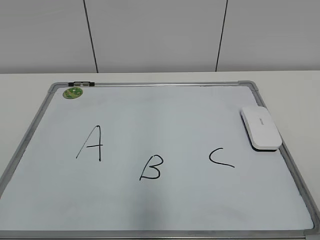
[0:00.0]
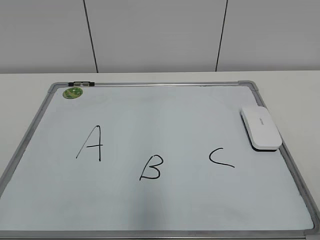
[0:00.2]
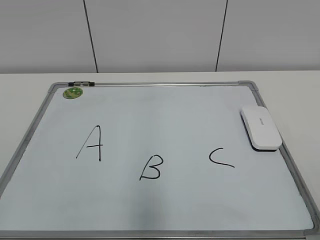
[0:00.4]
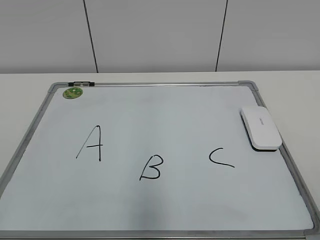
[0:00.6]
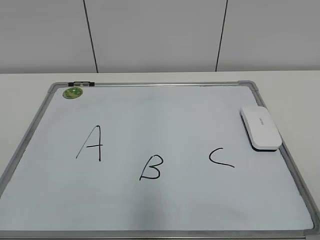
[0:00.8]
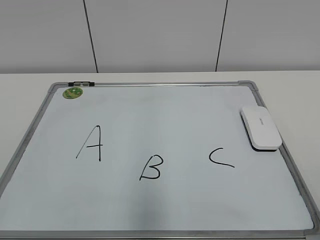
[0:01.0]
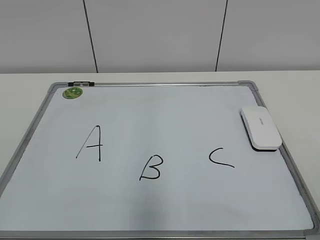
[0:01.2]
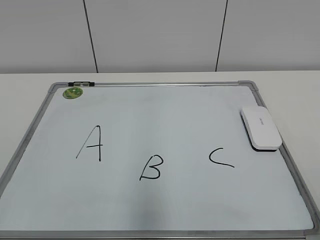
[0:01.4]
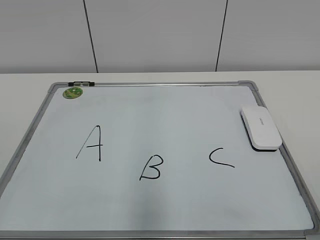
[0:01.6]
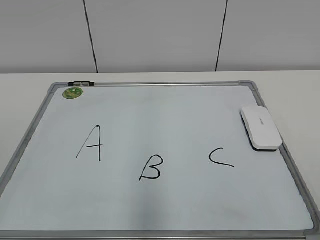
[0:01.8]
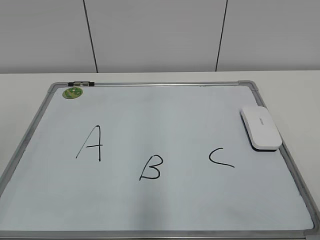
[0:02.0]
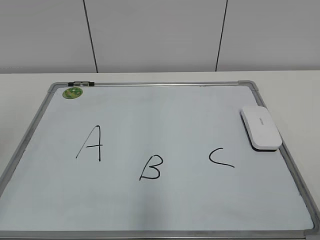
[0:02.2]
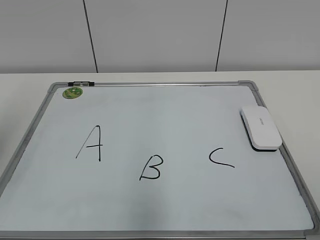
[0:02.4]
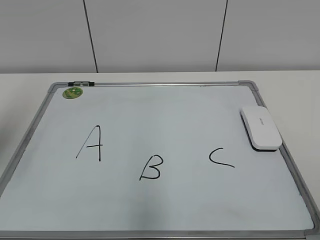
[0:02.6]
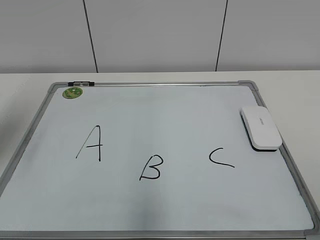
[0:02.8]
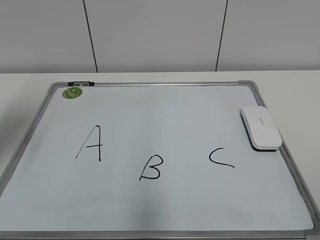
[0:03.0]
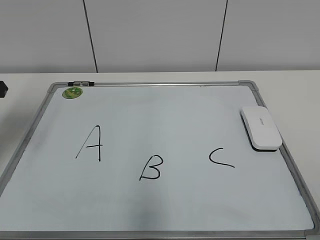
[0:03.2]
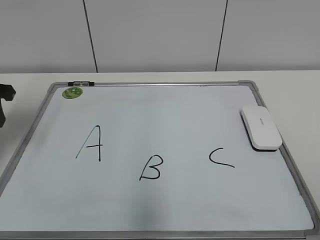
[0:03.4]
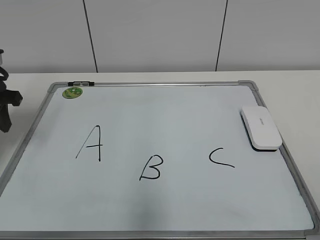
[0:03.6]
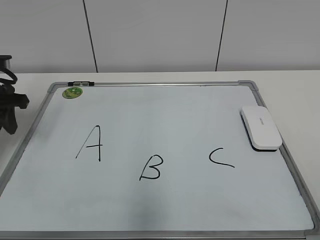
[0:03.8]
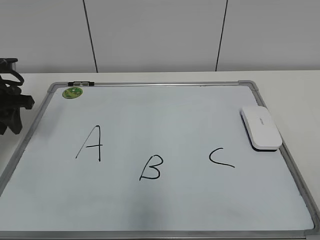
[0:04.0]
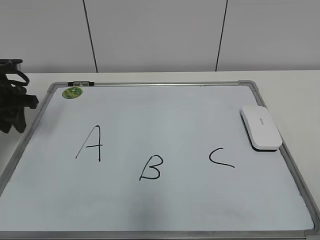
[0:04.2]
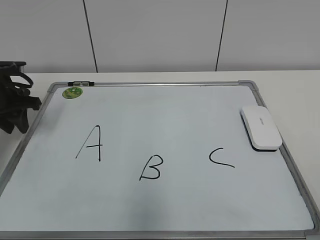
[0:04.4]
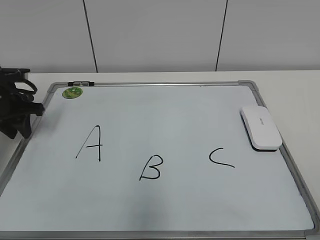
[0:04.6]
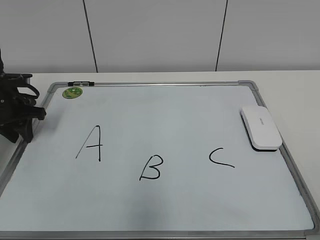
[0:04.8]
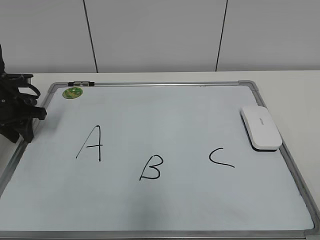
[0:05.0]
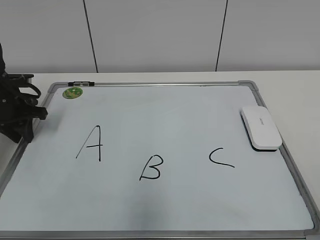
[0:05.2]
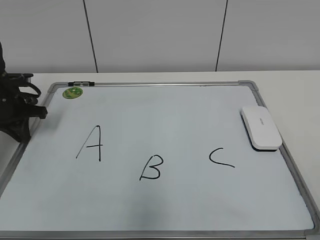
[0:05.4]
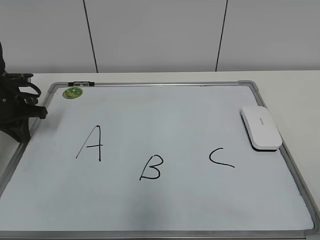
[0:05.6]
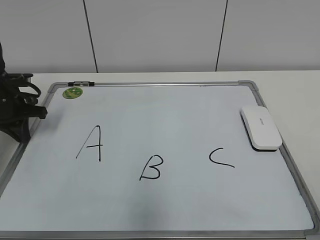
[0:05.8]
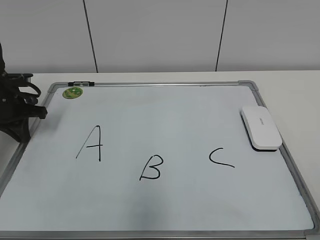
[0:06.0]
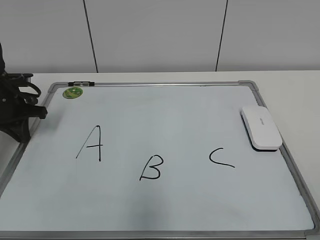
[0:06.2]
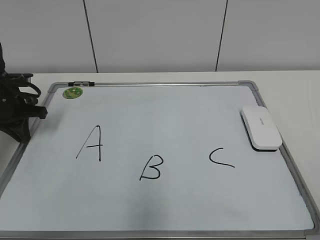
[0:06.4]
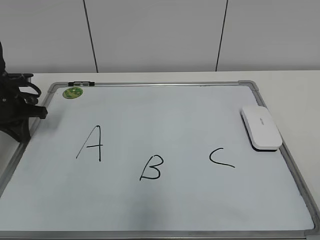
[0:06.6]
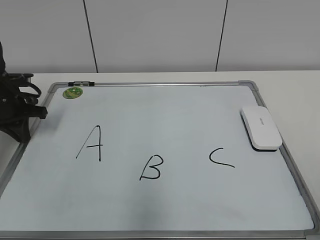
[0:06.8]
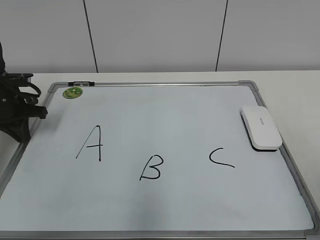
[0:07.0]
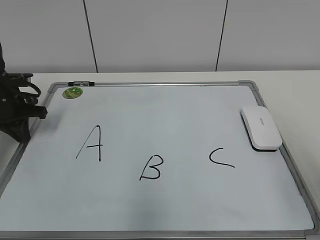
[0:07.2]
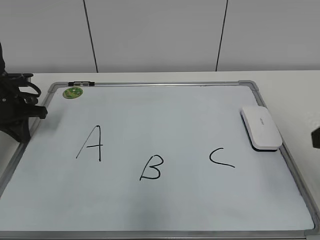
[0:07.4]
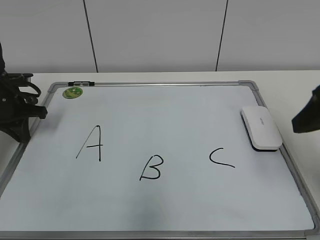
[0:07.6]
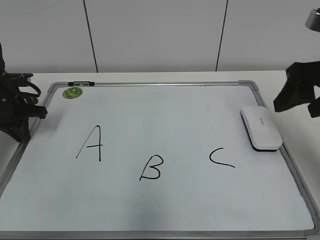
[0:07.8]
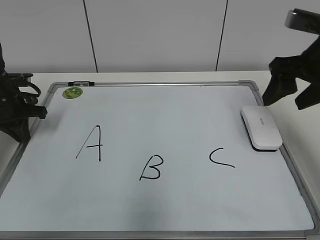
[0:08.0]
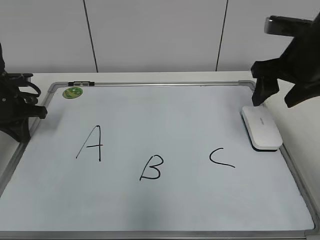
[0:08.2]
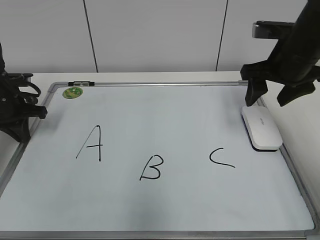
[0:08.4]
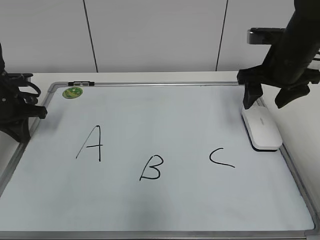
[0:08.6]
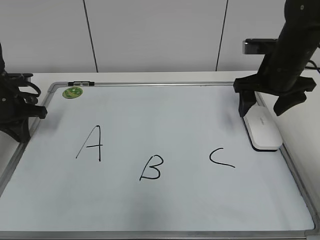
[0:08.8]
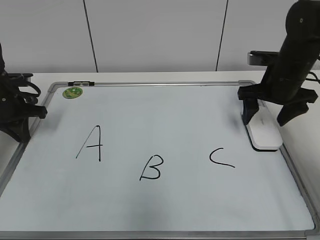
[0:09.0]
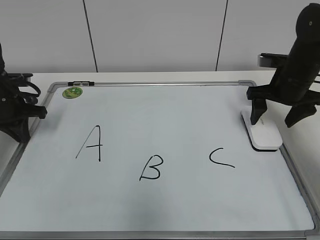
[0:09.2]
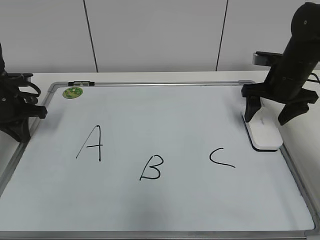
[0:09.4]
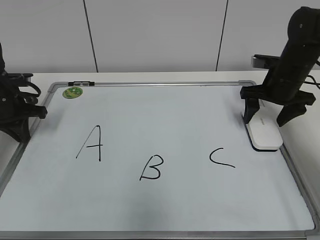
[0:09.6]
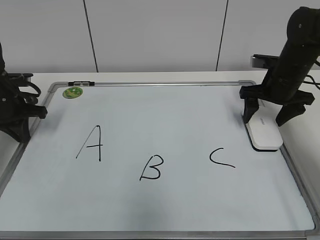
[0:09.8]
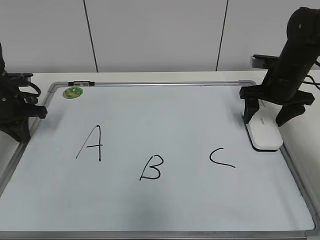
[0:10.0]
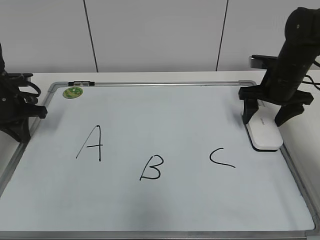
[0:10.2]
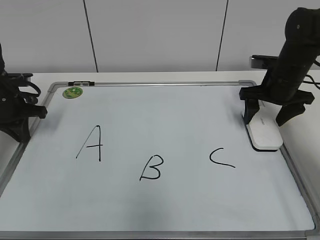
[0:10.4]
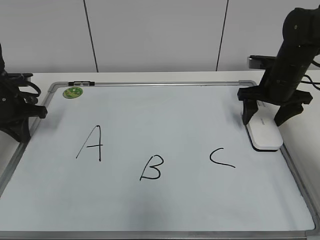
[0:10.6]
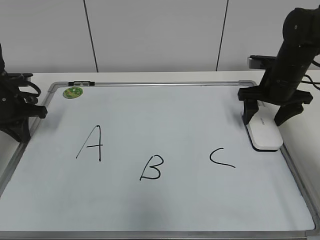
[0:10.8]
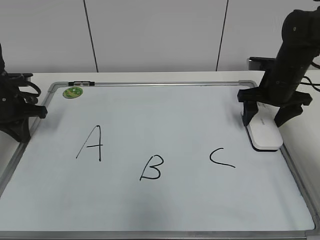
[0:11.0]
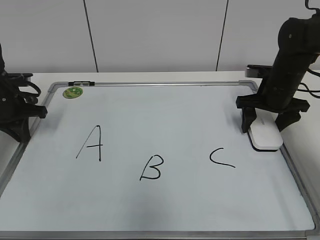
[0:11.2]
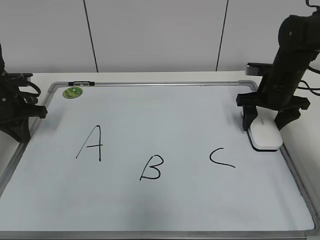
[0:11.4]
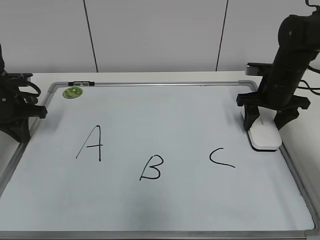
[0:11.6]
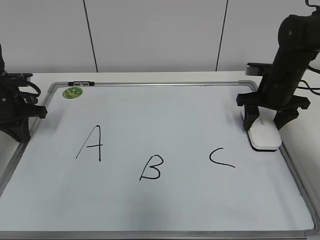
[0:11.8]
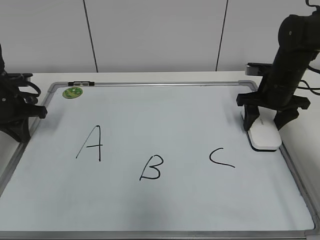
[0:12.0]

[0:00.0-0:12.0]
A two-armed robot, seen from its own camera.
Task of the whole recording: pick up the eraser on the blackboard and erase the letter "B".
Step, 0:00.0 to 0:05.4: Hold the drawing board steady with your left hand.
Step, 0:05.6 to 0:12.0: Grab the eraser with your right hand.
0:01.6 to 0:03.0: The left gripper goes approximately 30 cm forward.
0:03.0 to 0:04.4: The left gripper shifts approximately 15 cm downward and forward.
0:04.4 to 0:06.0: The left gripper closes.
0:06.0 to 0:07.6: The right gripper moves forward, roughly 25 cm.
0:07.6 to 0:09.0: The right gripper shifts about 20 cm forward and downward, and opens.
0:09.0 to 0:10.4: The grippers make only small movements.
0:10.4 to 0:12.0: The right gripper closes up.

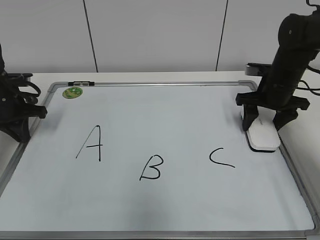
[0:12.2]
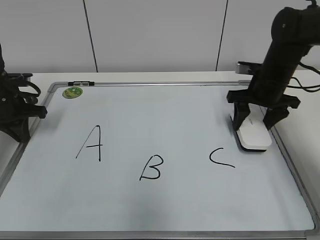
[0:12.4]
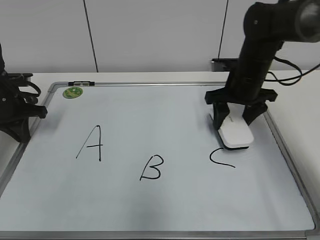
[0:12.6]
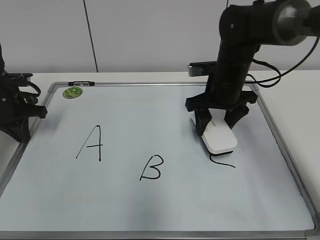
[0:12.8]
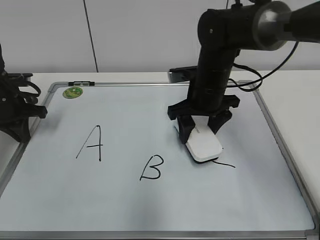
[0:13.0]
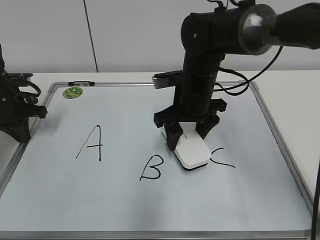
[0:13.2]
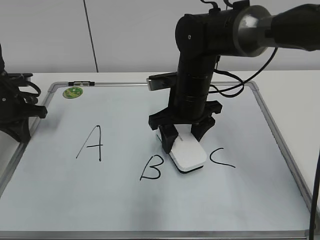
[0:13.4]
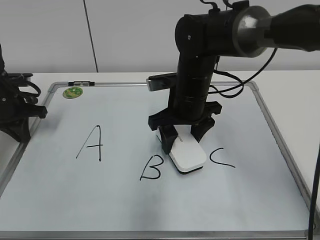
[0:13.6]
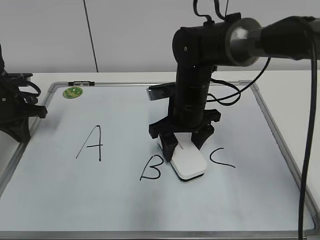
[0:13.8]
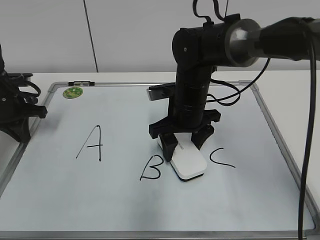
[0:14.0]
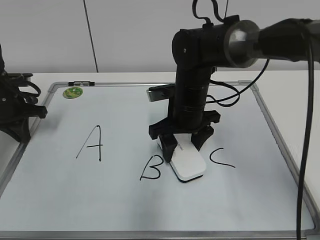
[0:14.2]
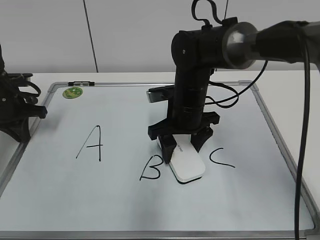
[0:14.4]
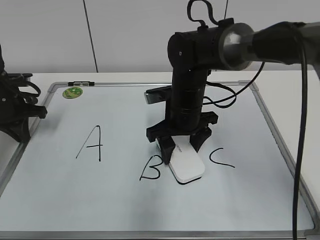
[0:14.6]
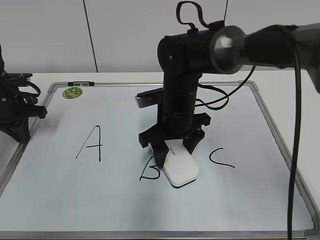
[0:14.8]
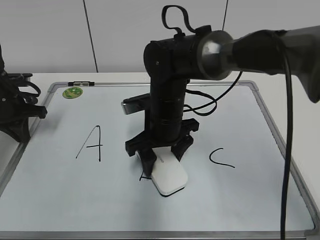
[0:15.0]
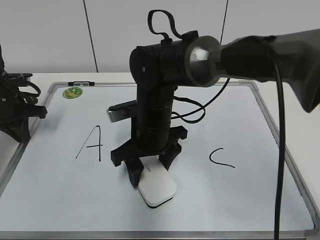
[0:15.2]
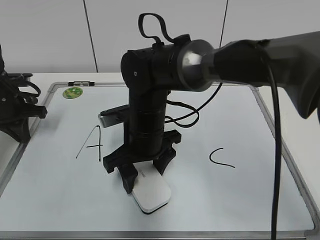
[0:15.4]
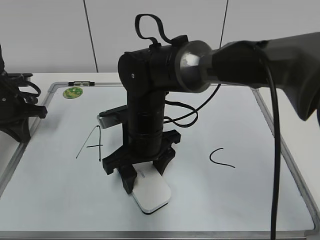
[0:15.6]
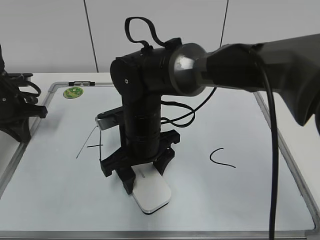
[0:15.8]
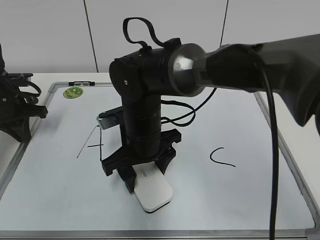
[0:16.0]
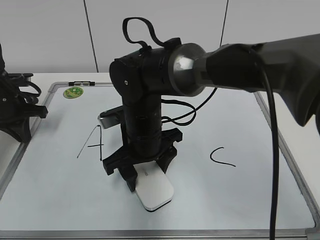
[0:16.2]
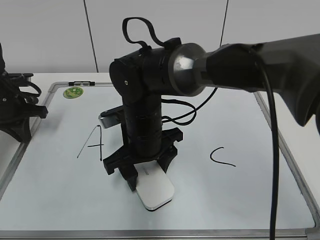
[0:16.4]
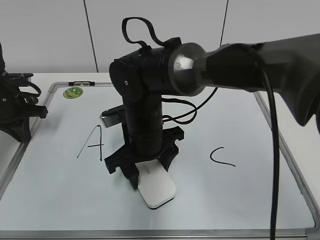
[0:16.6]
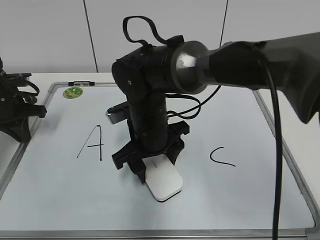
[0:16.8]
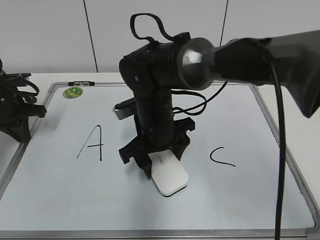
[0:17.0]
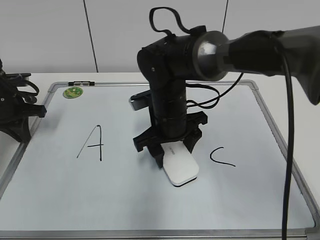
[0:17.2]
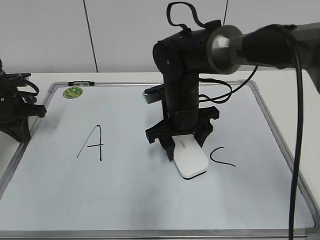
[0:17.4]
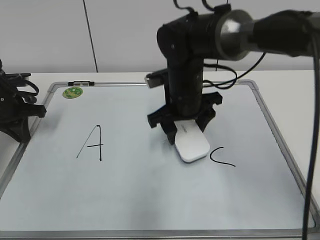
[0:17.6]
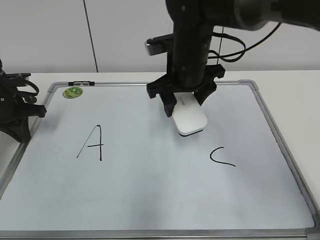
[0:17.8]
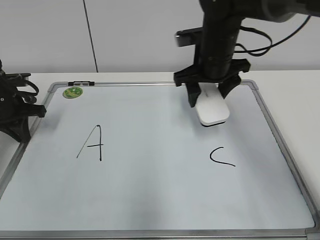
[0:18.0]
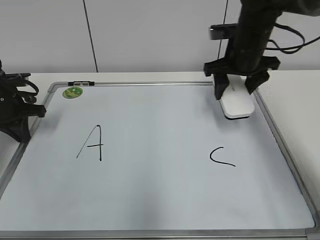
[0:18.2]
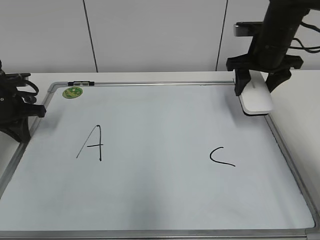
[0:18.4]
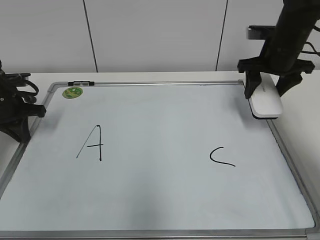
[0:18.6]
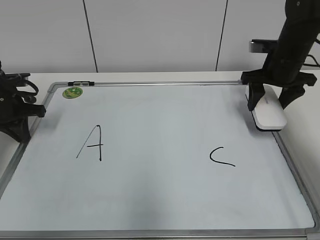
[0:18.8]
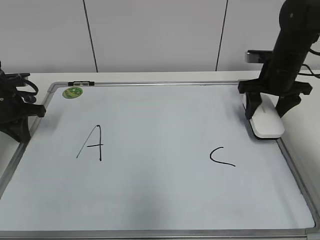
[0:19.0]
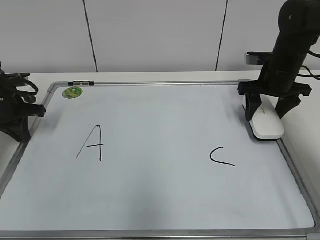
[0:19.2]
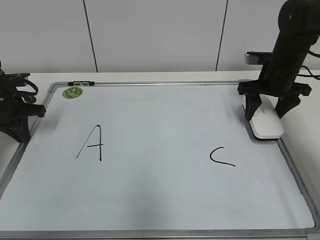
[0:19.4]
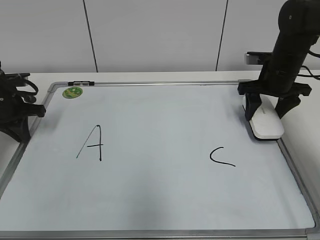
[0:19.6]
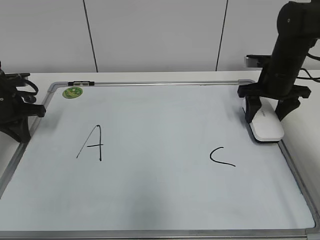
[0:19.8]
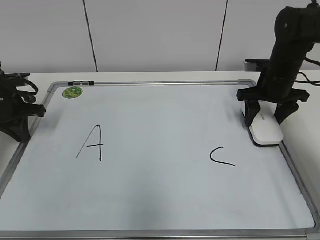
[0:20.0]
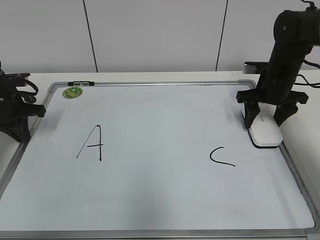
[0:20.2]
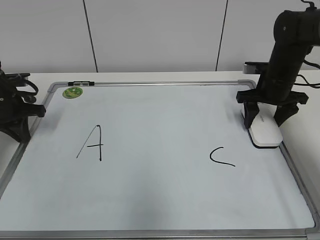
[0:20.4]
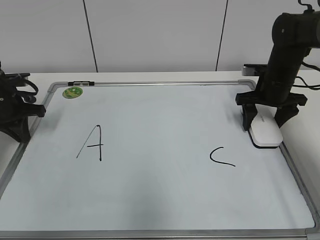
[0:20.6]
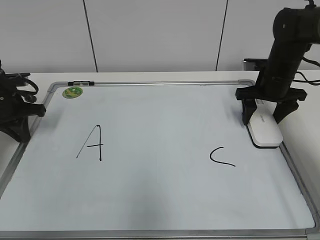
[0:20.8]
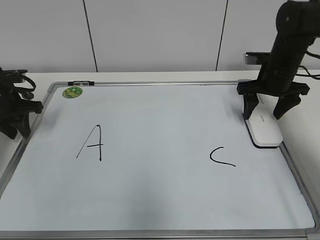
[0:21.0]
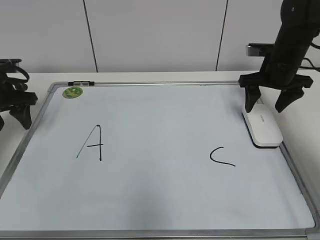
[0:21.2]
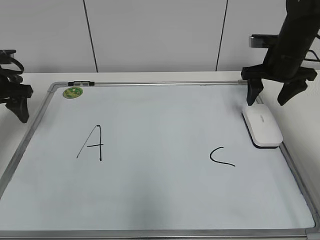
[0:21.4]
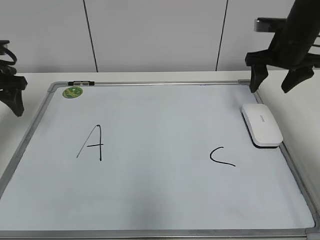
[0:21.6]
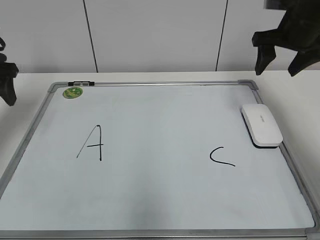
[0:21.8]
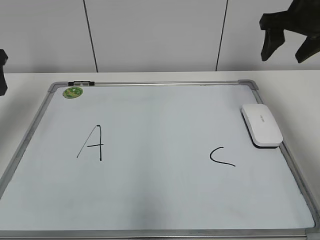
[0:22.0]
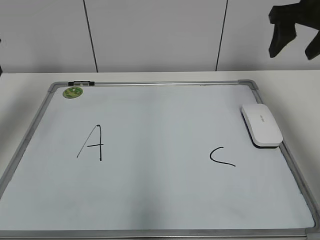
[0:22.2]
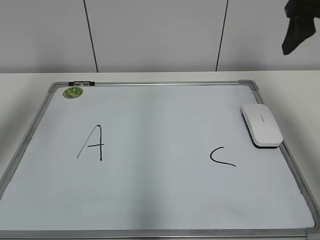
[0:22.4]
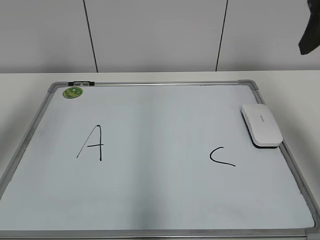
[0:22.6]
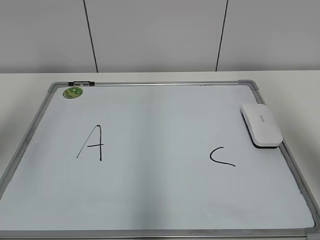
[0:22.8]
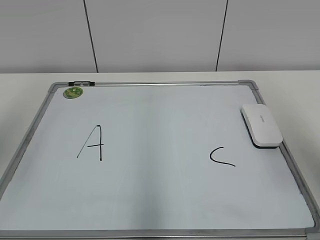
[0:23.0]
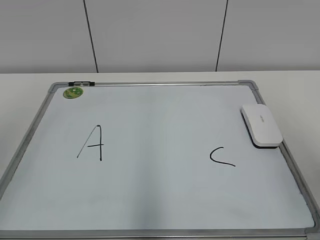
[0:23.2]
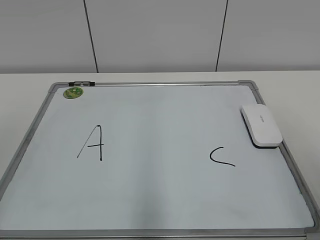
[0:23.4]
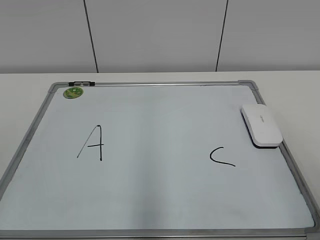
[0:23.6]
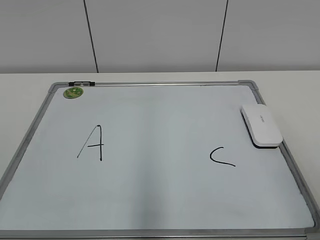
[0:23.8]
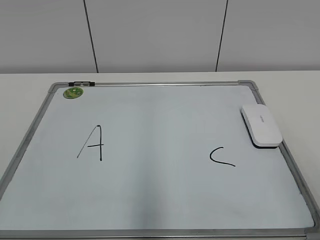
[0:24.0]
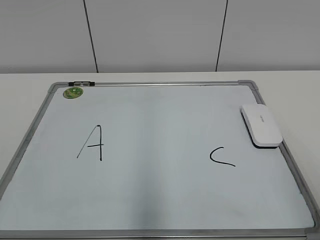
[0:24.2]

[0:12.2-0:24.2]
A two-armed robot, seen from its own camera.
Task of the whole recording: pick up the eraser on the blackboard and erase the letter "B".
Step, 0:12.2 to 0:17.4: Erase the letter B with your right hand.
0:12.2 to 0:13.8: The right gripper moves to the left, about 20 cm.
0:13.8 to 0:15.2: The right gripper moves to the left, roughly 5 cm.
0:15.2 to 0:16.6: The grippers move only a little.
0:16.6 to 0:18.2: The right gripper moves to the right, forward and upward, some 25 cm.
0:18.2 to 0:19.8: The right gripper shifts roughly 10 cm to the right and downward.
0:19.8 to 0:21.2: The left gripper opens. The right gripper opens its fingers.
0:21.2 to 0:22.6: Both grippers travel together upward and backward, approximately 25 cm.
0:22.6 to 0:24.2: The left gripper is displaced backward by approximately 25 cm. The right gripper is displaced backward and downward by approximately 30 cm.
